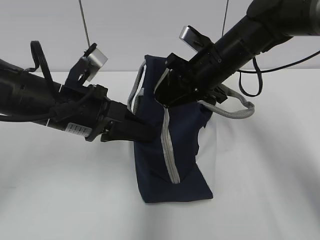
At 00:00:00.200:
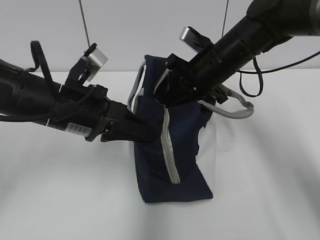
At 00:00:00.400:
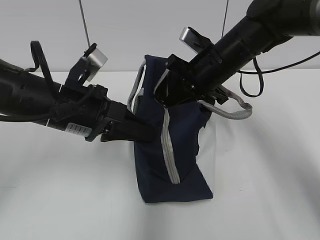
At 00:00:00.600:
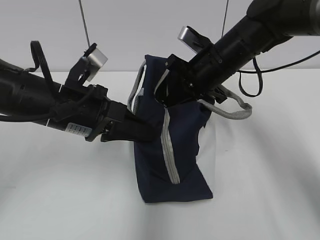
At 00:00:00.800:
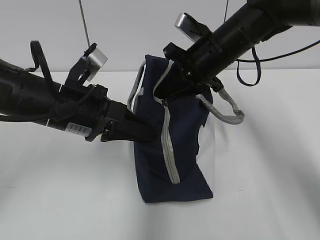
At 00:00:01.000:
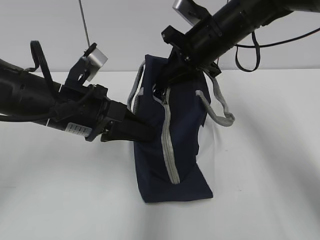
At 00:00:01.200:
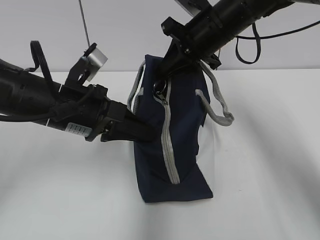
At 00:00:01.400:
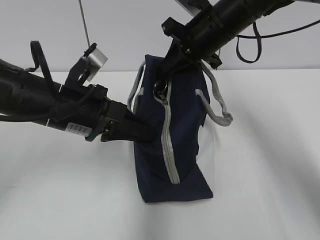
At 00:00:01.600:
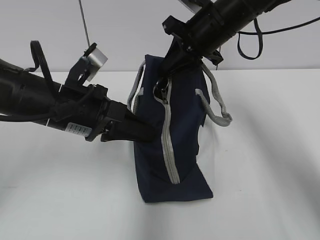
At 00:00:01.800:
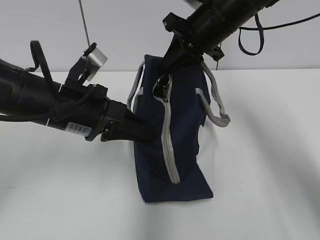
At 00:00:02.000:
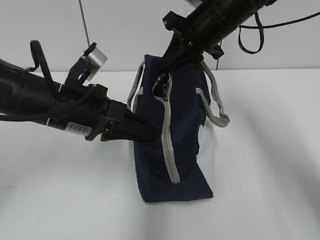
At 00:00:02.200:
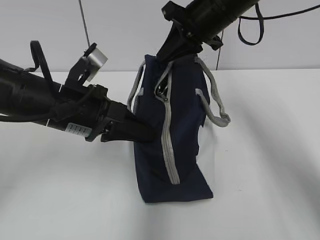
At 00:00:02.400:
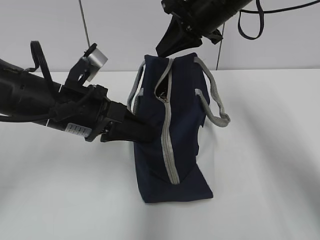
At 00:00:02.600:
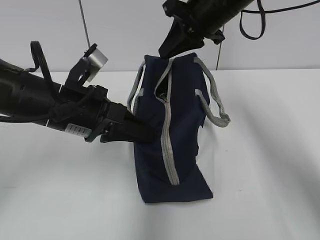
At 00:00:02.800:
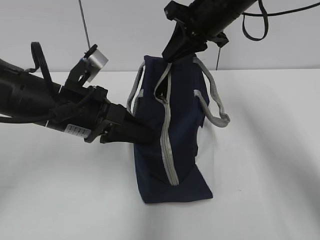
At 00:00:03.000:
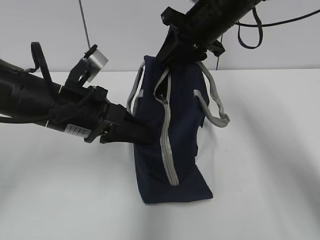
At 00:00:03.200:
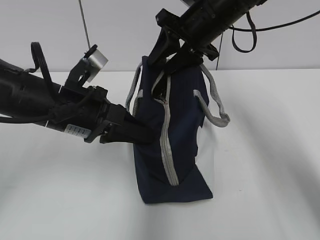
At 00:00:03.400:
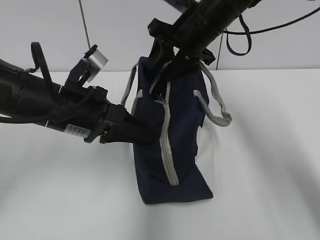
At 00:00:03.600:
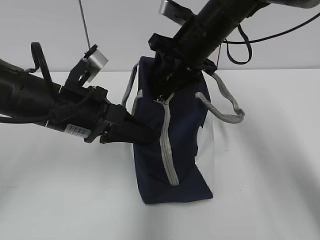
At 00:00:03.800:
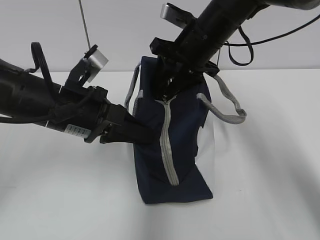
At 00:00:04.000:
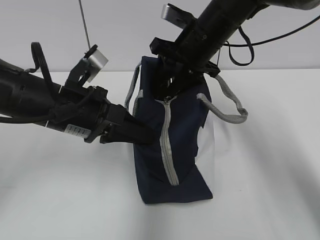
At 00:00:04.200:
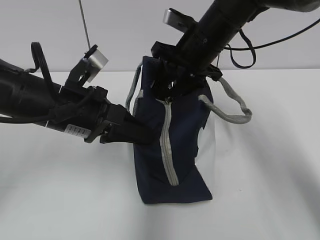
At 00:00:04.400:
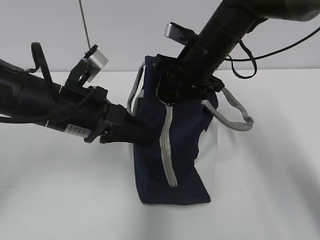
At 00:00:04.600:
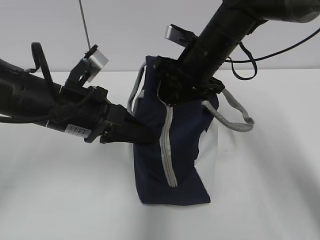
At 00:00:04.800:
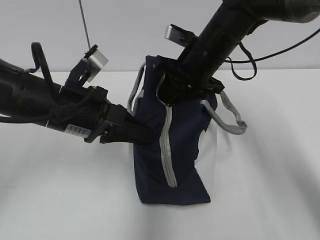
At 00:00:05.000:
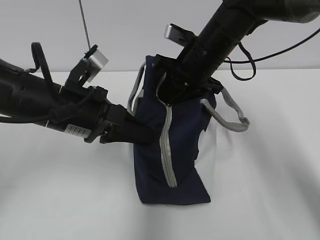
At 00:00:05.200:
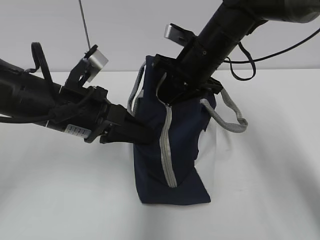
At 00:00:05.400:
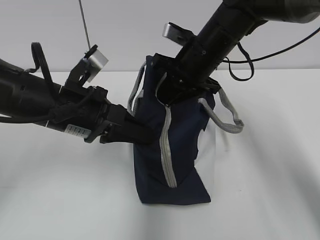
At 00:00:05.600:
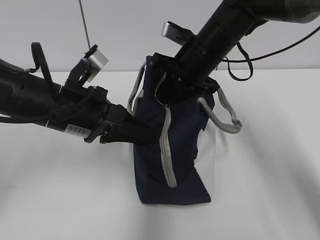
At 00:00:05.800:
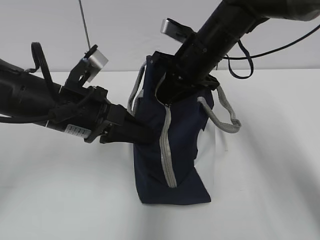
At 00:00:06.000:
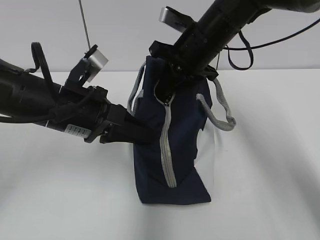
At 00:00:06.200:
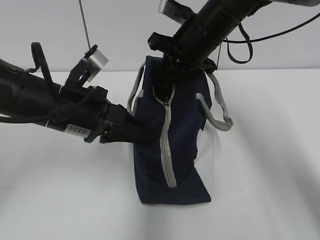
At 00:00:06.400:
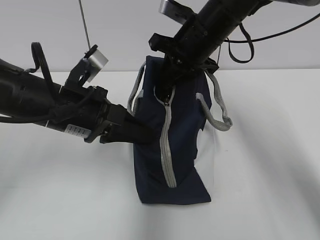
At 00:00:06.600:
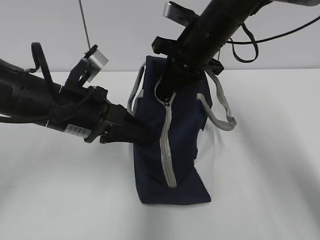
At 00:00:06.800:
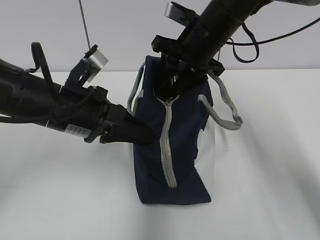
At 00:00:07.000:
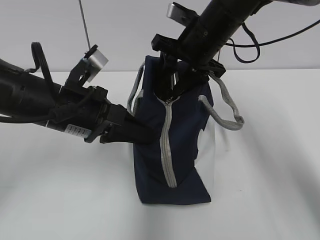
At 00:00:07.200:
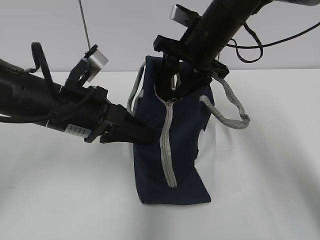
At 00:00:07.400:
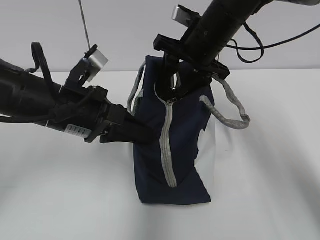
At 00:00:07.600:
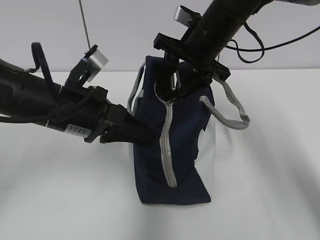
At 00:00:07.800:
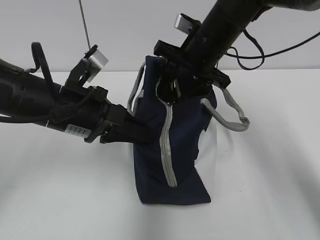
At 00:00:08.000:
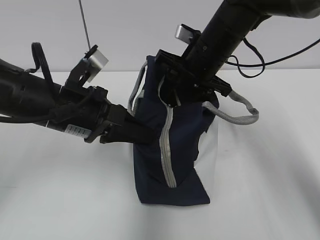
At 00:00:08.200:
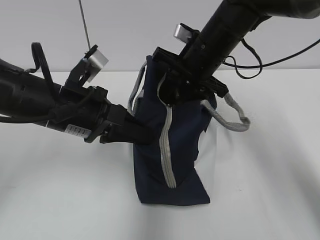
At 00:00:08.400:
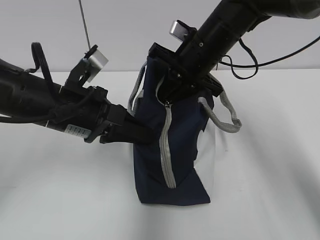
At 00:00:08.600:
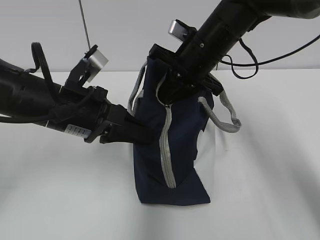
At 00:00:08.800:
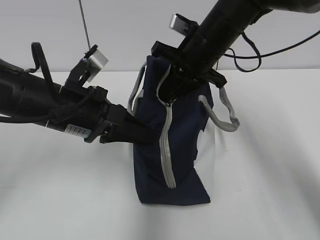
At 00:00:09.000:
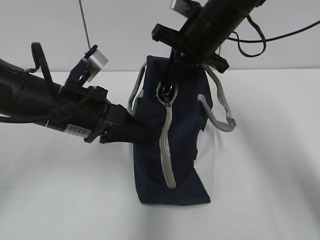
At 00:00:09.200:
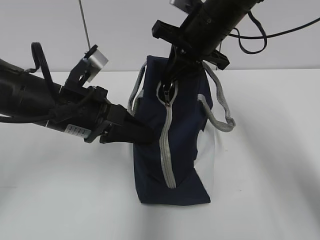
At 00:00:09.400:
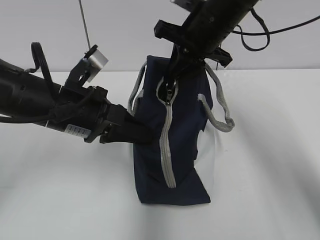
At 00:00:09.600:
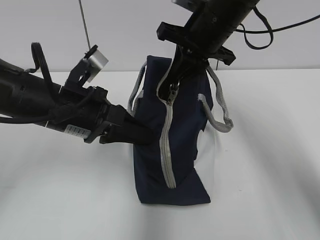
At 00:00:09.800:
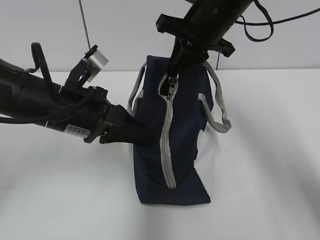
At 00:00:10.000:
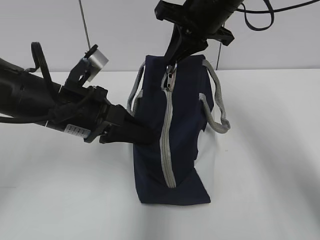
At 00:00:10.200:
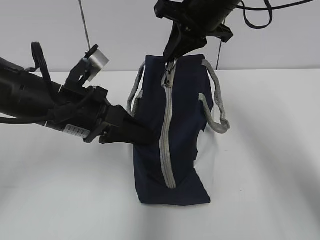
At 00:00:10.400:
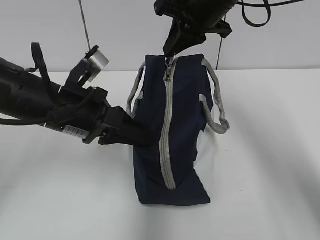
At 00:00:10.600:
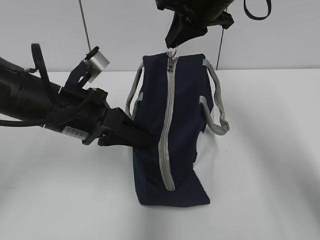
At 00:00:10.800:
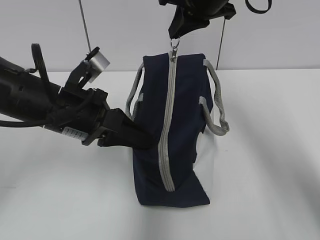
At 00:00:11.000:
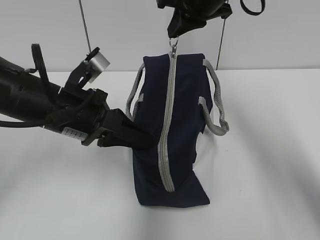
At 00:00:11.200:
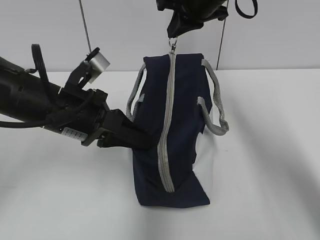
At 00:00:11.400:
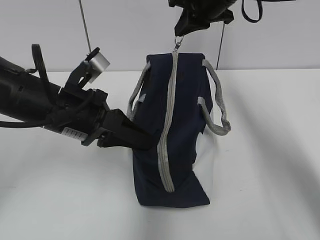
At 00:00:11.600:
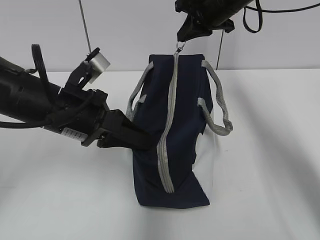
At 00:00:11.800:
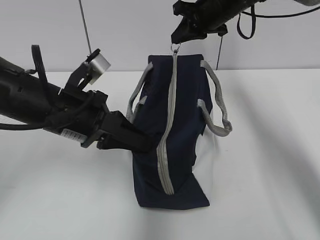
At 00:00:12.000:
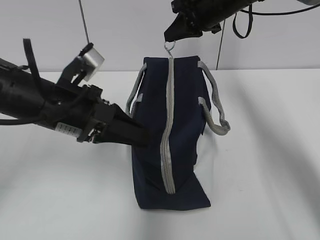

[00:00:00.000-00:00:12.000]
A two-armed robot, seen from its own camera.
00:00:00.000 to 00:00:01.600: The right gripper goes roughly 5 cm upward, and closes up.
00:00:01.600 to 00:00:03.000: The right gripper opens.
00:00:03.000 to 00:00:04.400: The right gripper travels downward by about 5 cm.
00:00:04.400 to 00:00:06.000: The right gripper closes up.
00:00:06.000 to 00:00:07.600: The right gripper opens.
00:00:07.600 to 00:00:09.000: The right gripper closes its fingers.
00:00:09.000 to 00:00:10.400: The grippers move only a little.
00:00:10.400 to 00:00:12.000: The right gripper heads forward, covering about 10 cm.

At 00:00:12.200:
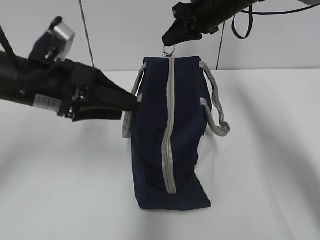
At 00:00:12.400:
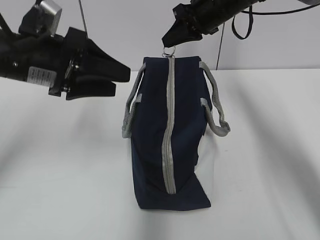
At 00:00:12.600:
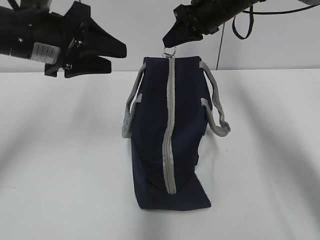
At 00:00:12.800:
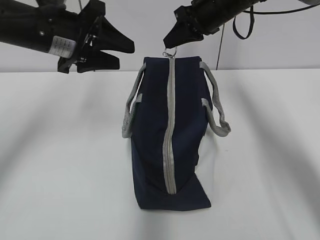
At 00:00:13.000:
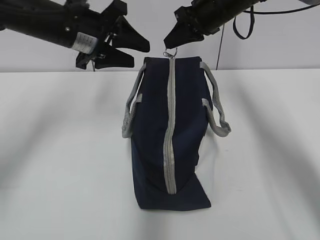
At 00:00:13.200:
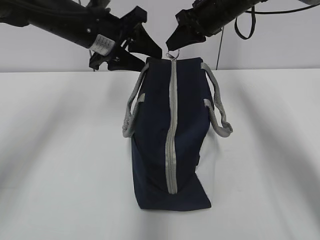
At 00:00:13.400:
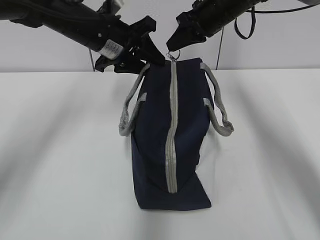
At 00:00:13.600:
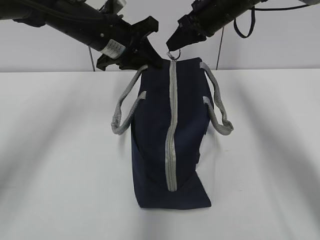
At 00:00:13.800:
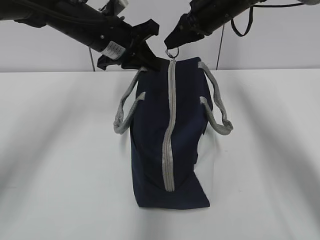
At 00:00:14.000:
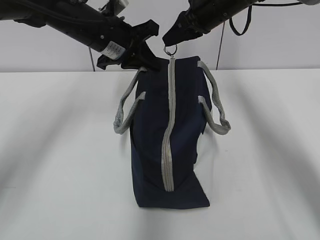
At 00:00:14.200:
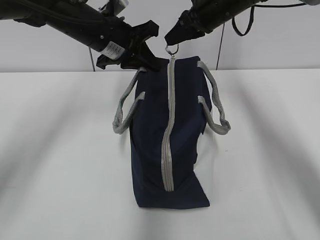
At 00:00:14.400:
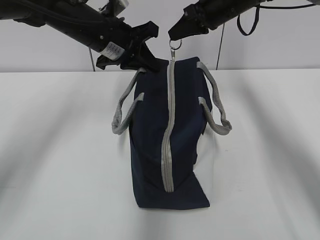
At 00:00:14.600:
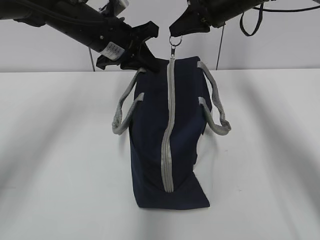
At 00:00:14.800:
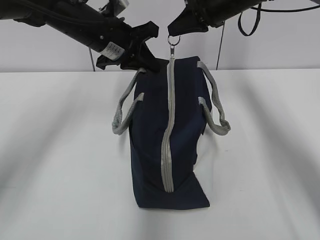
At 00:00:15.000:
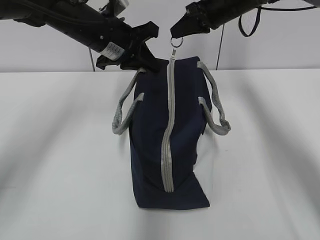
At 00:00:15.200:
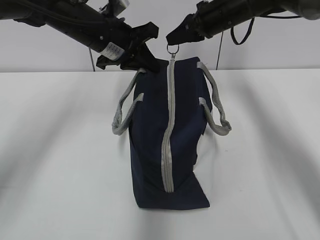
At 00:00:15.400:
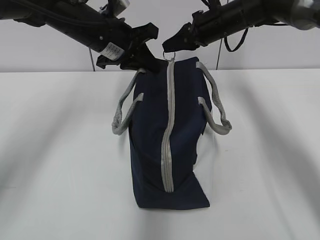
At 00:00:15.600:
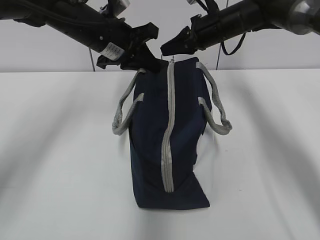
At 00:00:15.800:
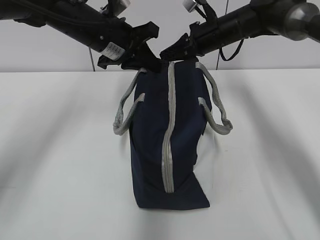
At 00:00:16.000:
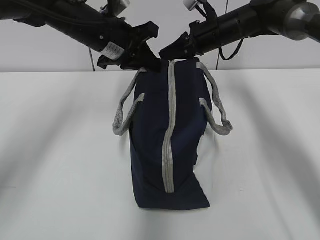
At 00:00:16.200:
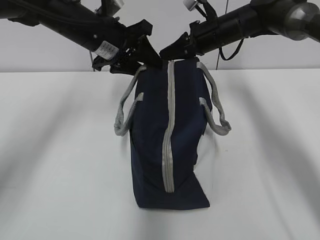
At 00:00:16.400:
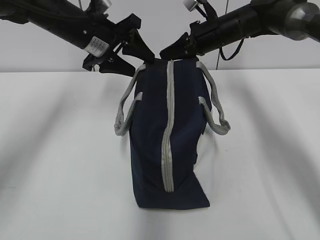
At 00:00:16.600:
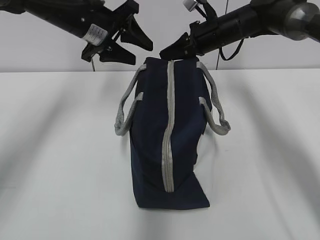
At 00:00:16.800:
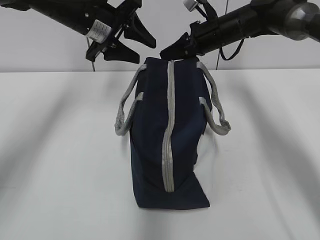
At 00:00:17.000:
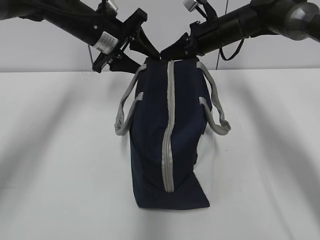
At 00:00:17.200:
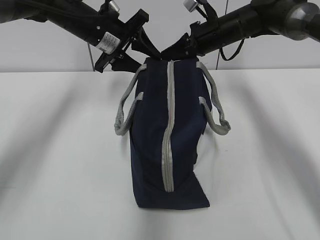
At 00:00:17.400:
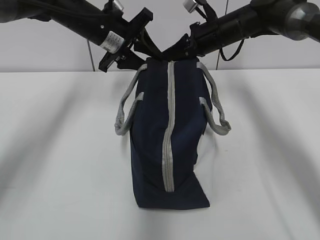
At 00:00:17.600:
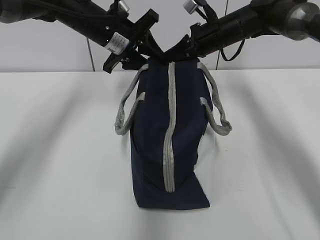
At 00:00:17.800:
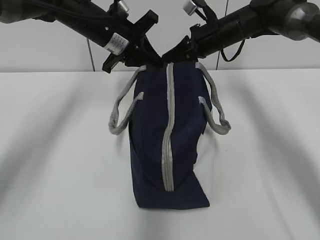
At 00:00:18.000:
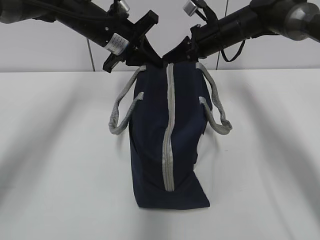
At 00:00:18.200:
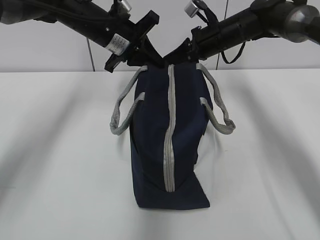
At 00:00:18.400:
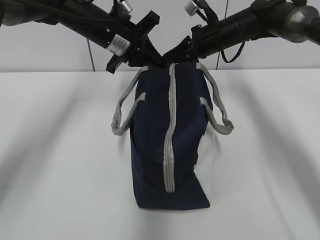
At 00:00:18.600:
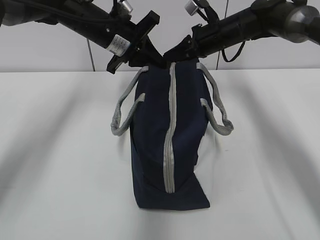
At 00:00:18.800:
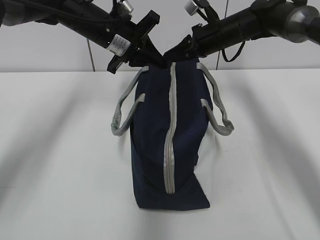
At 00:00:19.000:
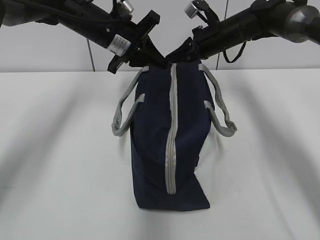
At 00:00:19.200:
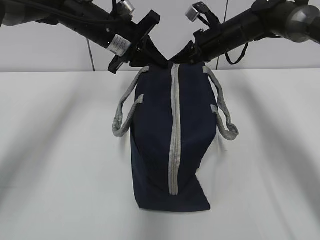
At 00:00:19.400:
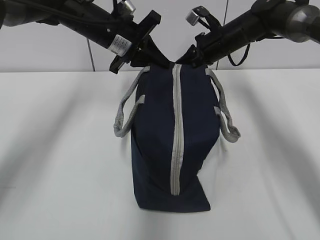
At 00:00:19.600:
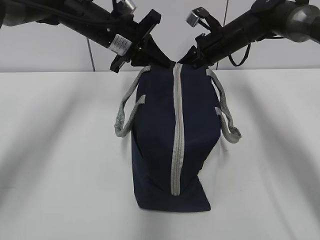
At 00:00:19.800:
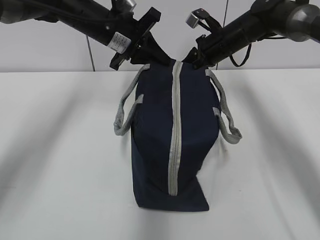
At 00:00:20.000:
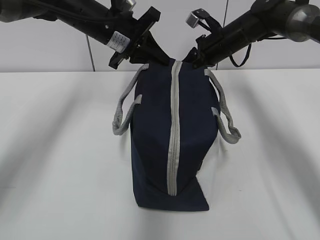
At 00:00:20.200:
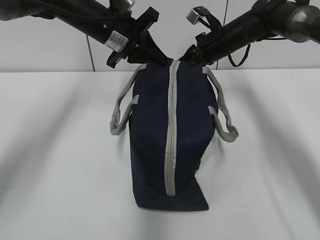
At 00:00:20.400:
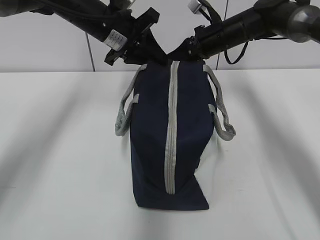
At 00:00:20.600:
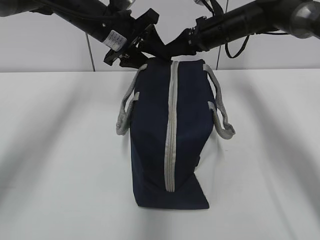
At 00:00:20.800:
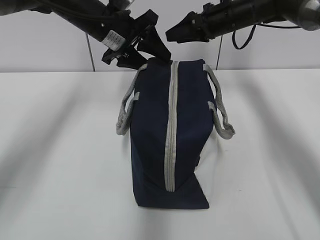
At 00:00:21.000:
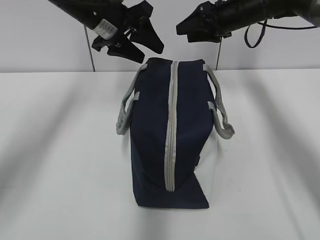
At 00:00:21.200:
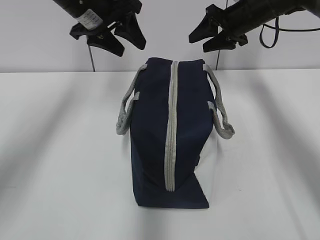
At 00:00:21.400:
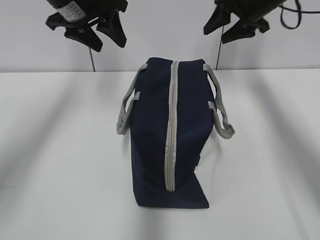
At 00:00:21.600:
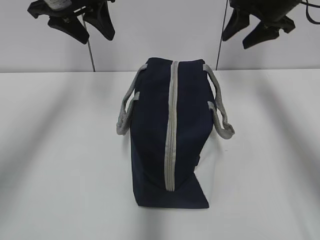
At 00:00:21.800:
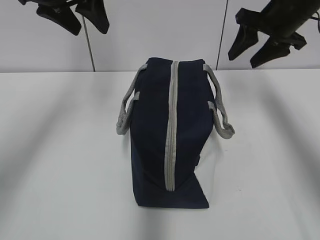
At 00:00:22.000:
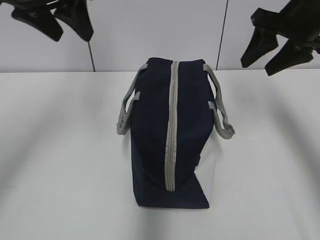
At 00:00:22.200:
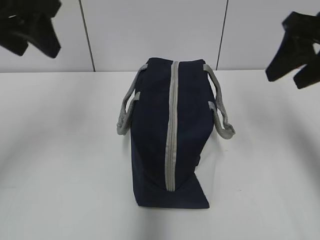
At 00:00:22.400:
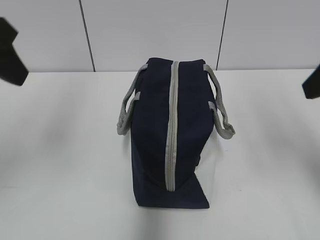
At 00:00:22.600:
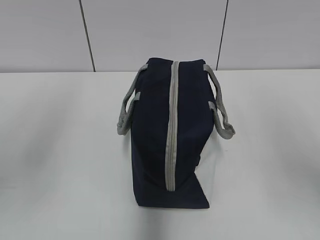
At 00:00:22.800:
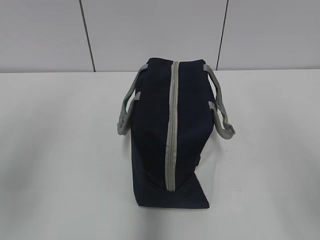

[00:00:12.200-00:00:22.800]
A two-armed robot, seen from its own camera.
Step, 00:00:12.200 to 00:00:20.200: Pull the zipper with your right hand.
00:00:12.200 to 00:00:13.800: The left gripper heads forward and to the right, covering about 15 cm, and closes its fingers.
00:00:13.800 to 00:00:15.200: The grippers stay close to where they were, moving slightly.
00:00:15.200 to 00:00:16.800: The left gripper opens.
00:00:16.800 to 00:00:18.200: The left gripper closes up.
00:00:18.200 to 00:00:19.800: The grippers make only small movements.
00:00:19.800 to 00:00:21.200: The two grippers go about 5 cm upward. The right gripper opens up; the left gripper opens.
00:00:21.200 to 00:00:22.800: The right gripper heads backward, covering about 40 cm, while the left gripper shifts about 30 cm backward and to the left.
